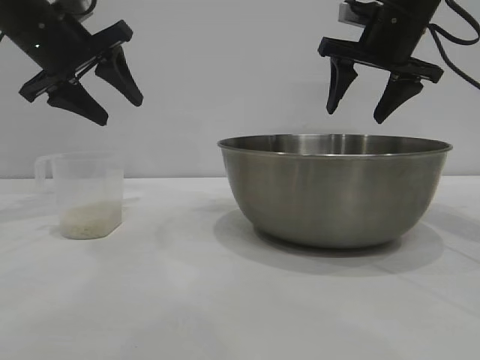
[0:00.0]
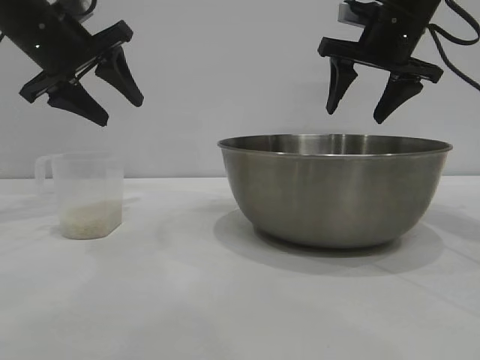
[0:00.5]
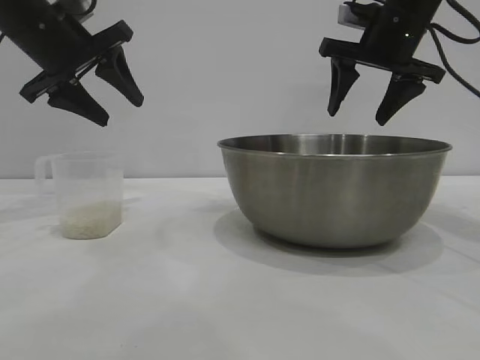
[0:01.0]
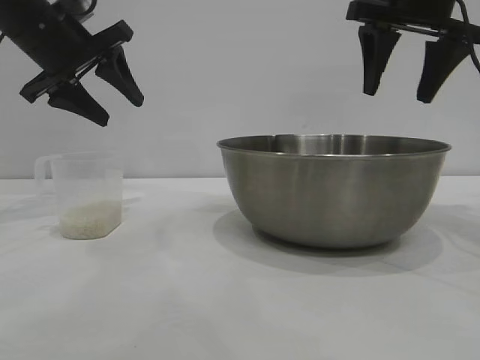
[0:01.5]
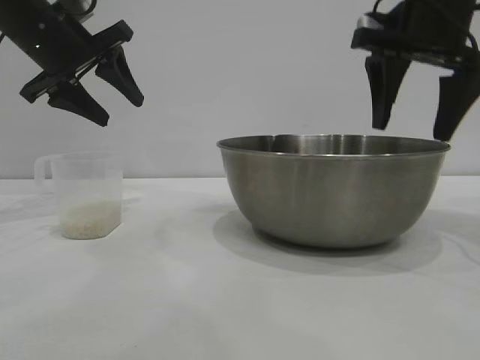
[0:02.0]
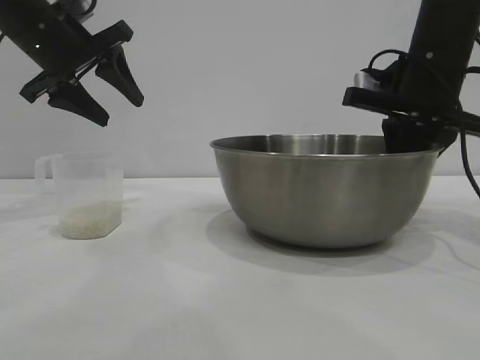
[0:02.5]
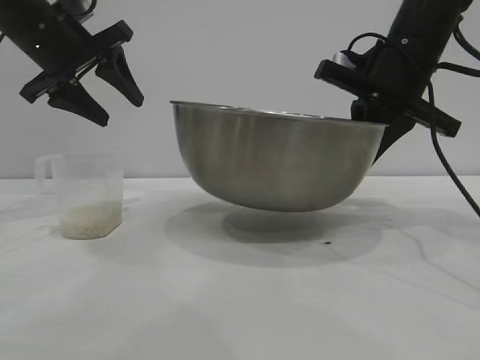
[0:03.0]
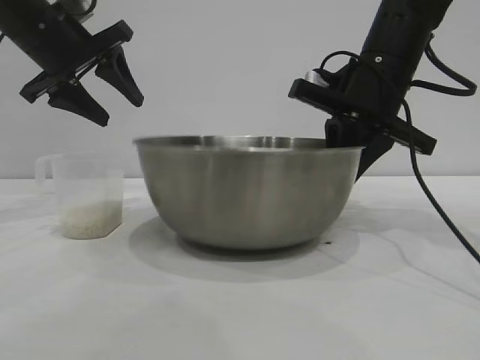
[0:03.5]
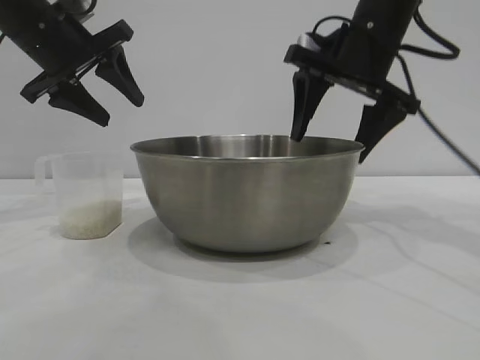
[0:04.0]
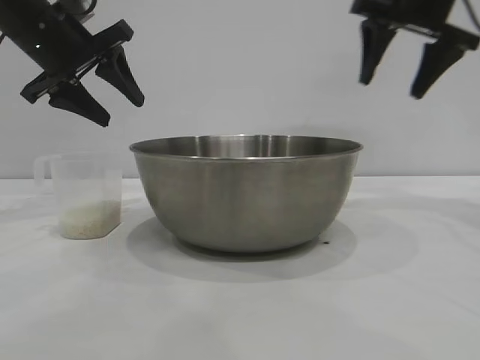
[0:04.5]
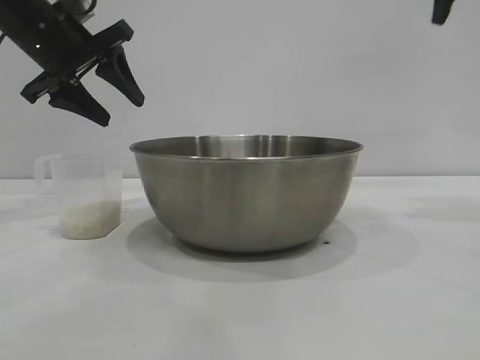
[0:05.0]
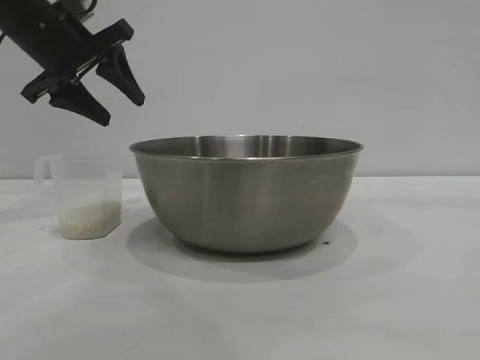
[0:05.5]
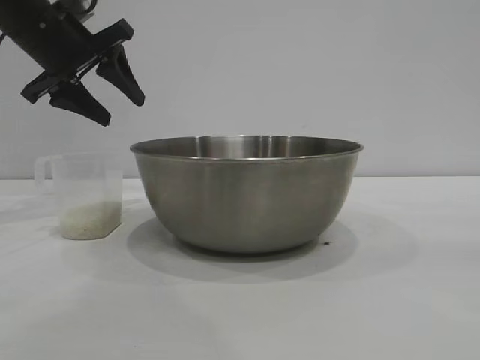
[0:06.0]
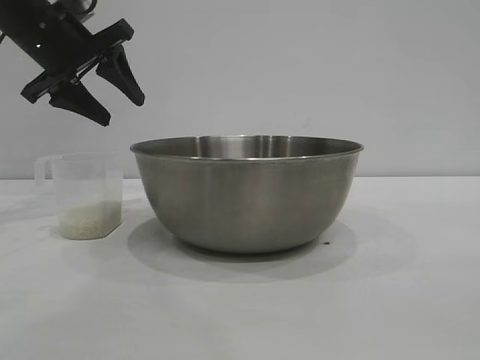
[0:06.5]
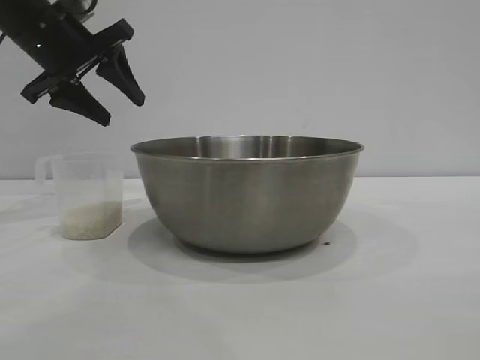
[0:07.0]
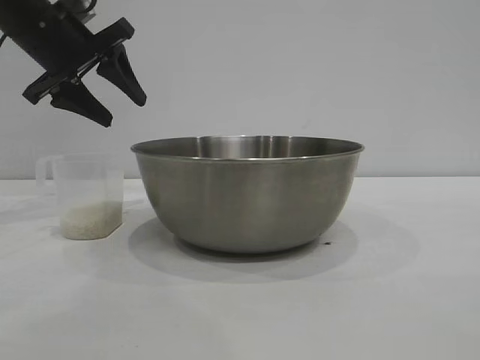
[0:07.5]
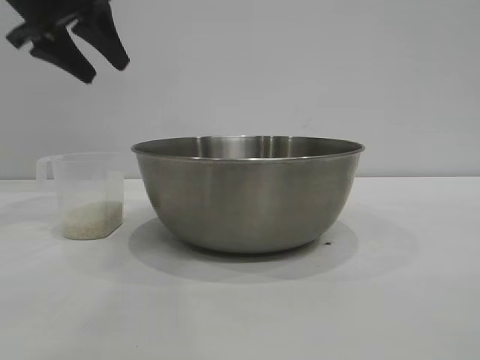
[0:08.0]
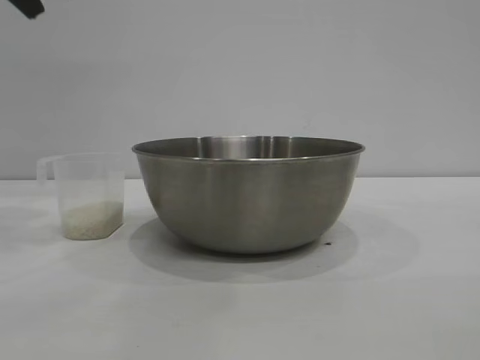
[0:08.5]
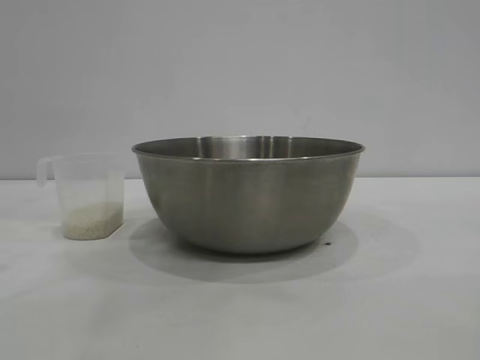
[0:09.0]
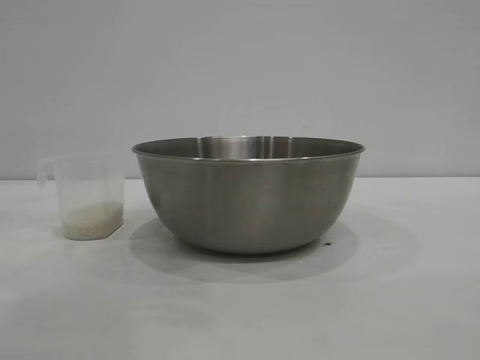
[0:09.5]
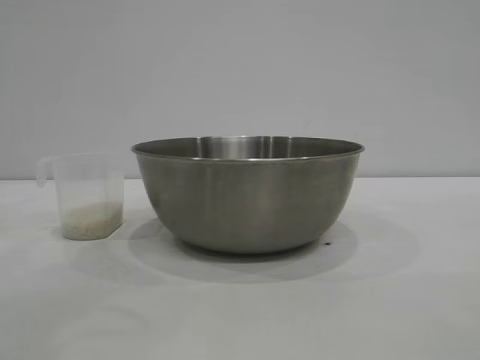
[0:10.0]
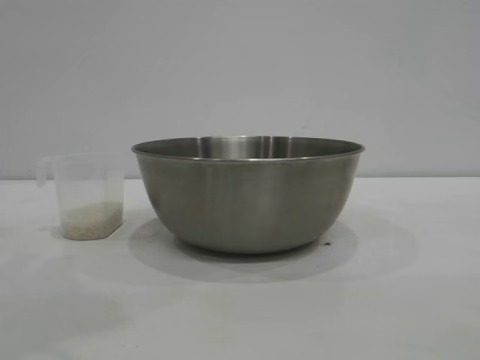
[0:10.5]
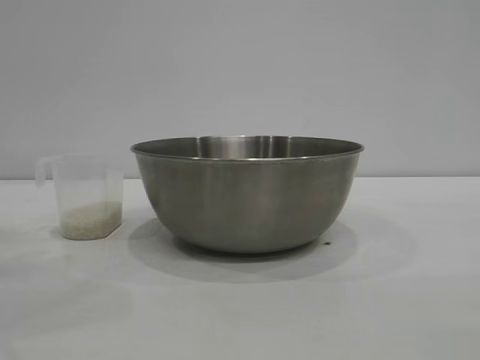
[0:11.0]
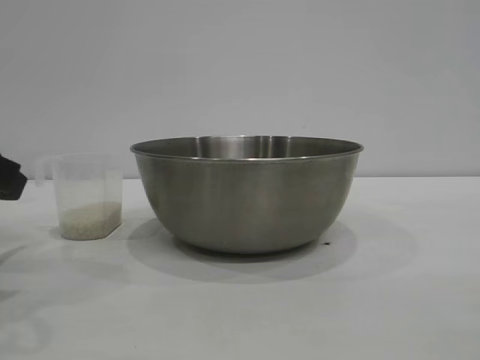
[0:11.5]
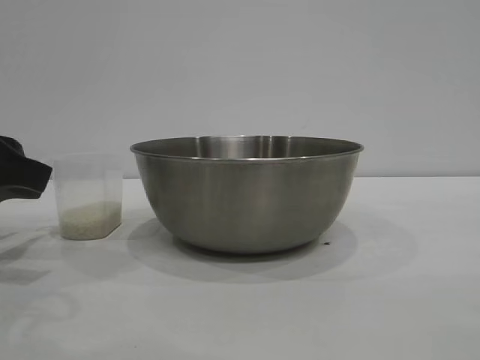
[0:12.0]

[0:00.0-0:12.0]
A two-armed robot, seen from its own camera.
Task of the whole recording: the right gripper grasp the rice container and place it in the center of the table, the left gripper grasp the rice scoop and pour the rice into the rice container.
Step, 0:00.0 to 0:02.5: Pick up the bowl with the right gripper.
Step, 0:03.0 to 0:04.0: Place the bowl in the center of view with the right gripper.

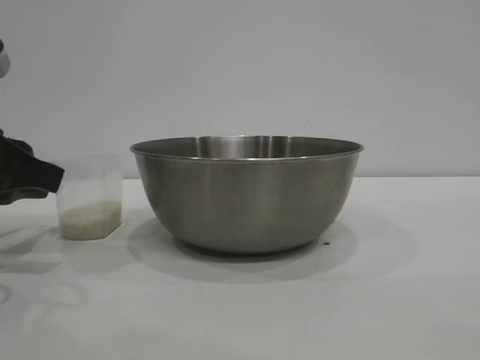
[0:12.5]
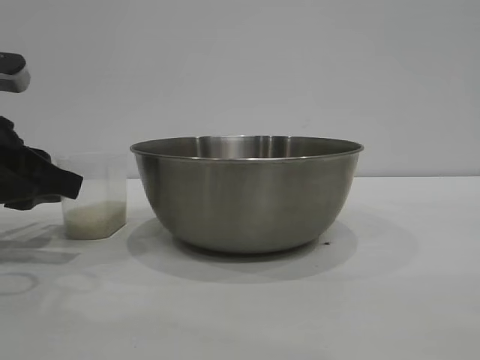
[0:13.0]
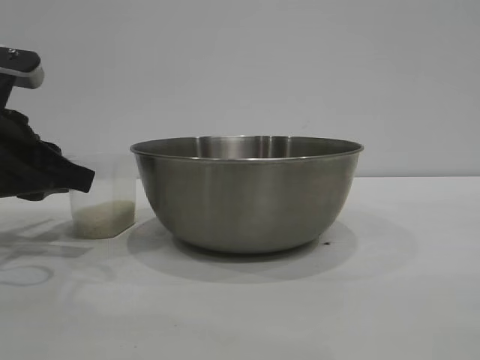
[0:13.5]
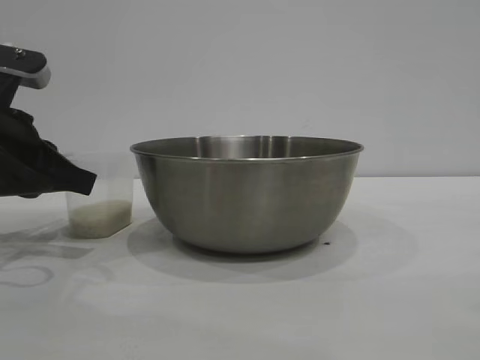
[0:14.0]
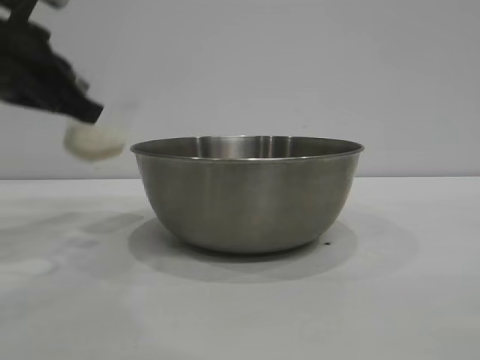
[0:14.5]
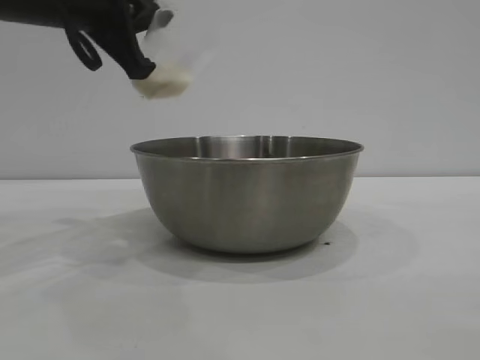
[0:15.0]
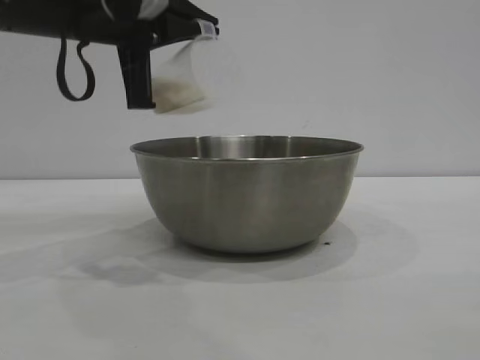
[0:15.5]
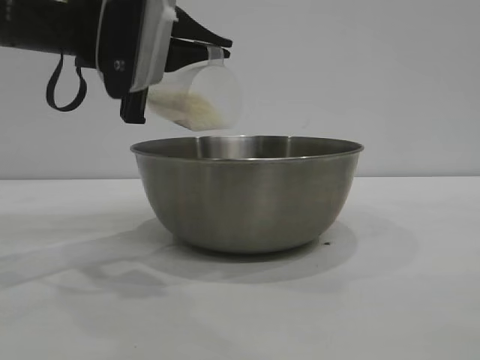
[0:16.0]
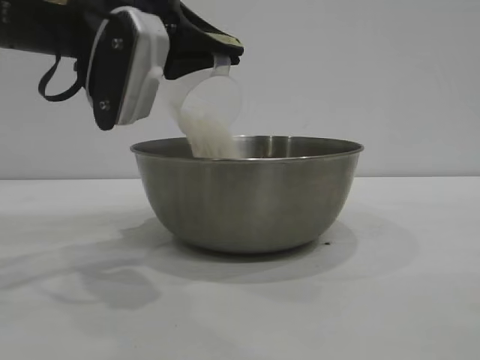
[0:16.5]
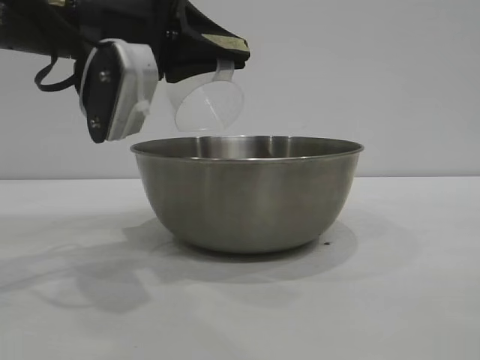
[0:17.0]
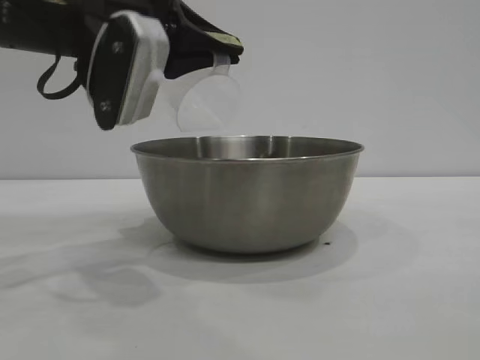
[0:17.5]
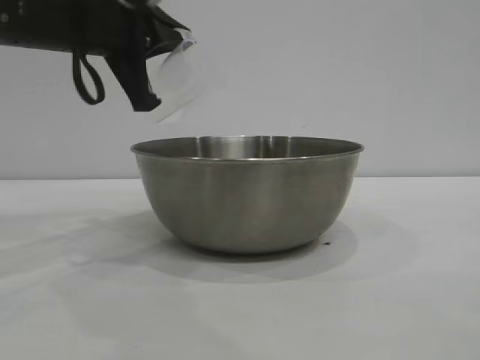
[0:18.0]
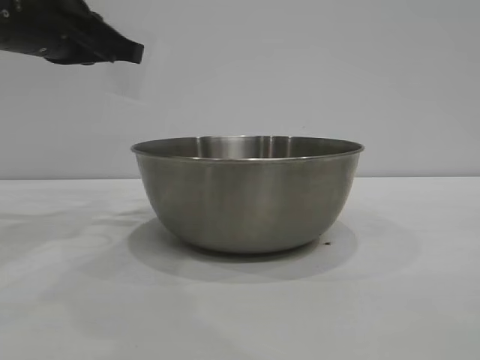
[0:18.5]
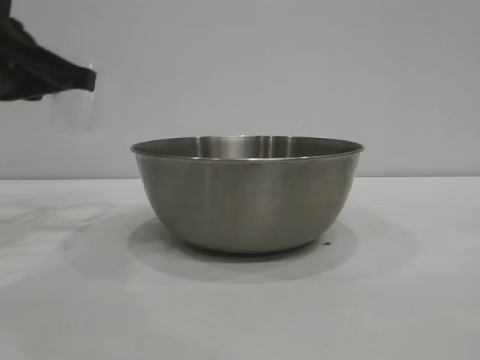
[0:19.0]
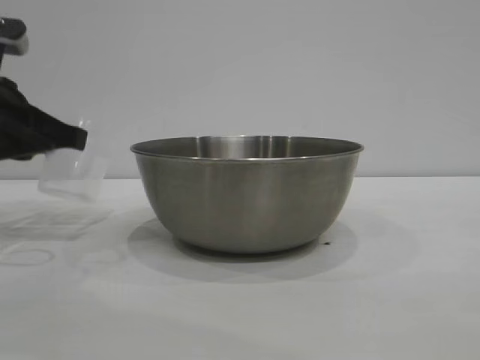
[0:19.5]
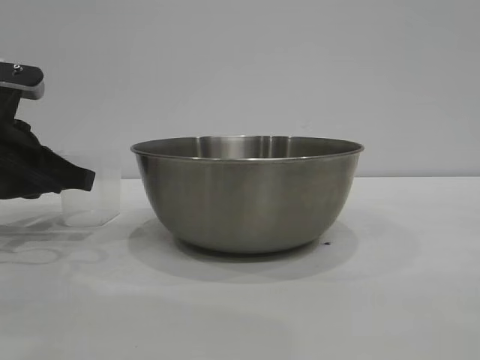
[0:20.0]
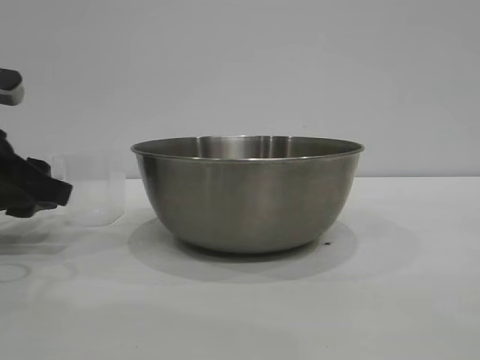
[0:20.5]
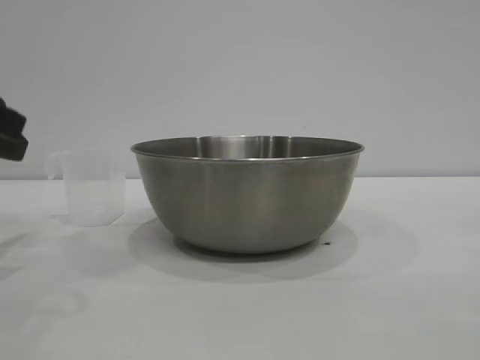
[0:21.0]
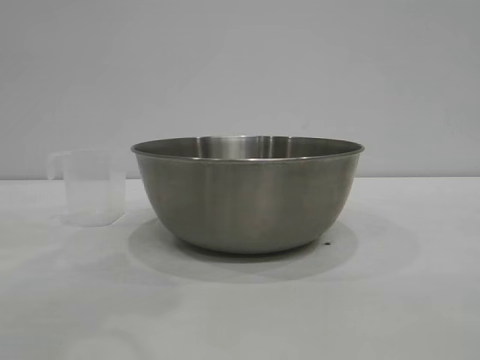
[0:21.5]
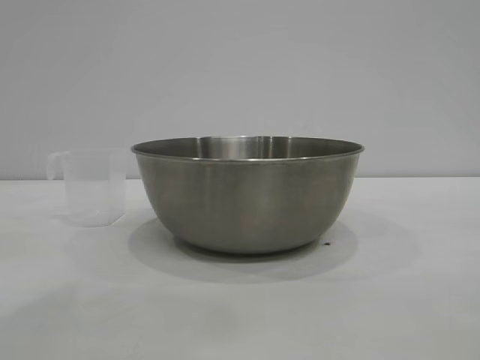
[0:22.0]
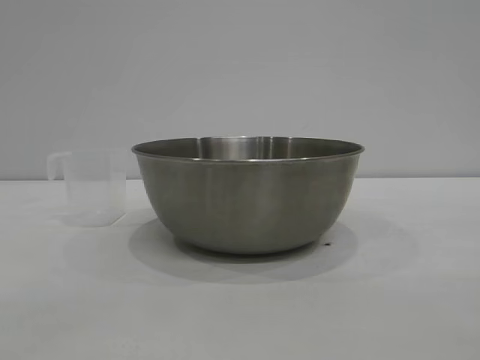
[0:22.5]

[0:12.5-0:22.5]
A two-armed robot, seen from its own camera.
Task of the whole recording: the right gripper grasp the rice container and place it in the center of the table, the left gripper grasp the rice scoop and pour the rice into the rice container.
Step, 0:14.5 to 0:17.0: Pour the rice from the cup into the bowl with the left gripper.
Step, 0:17.5 to 0:20.5: Place the cup on the table with the left gripper.
